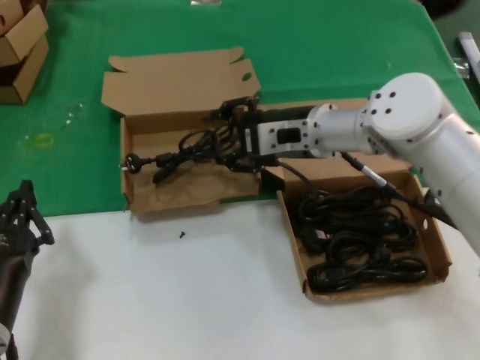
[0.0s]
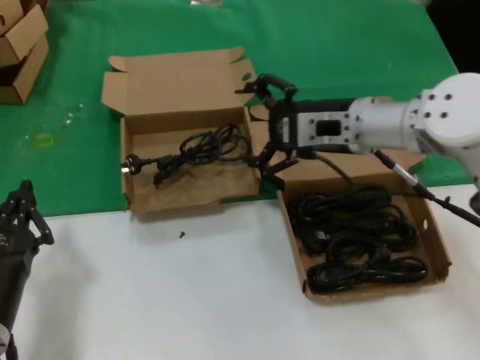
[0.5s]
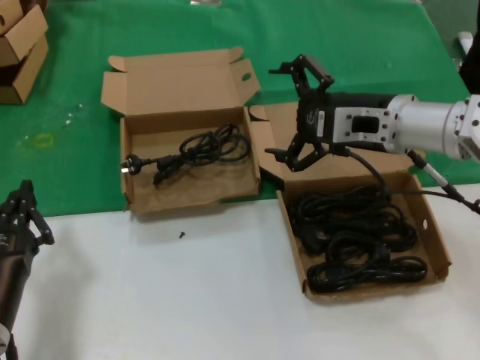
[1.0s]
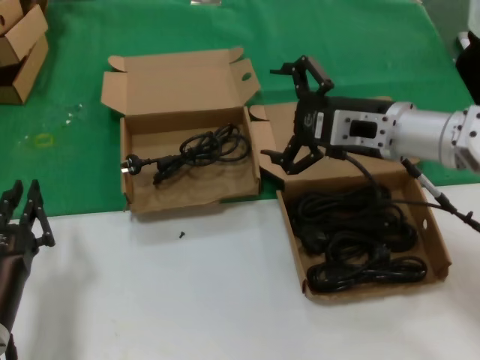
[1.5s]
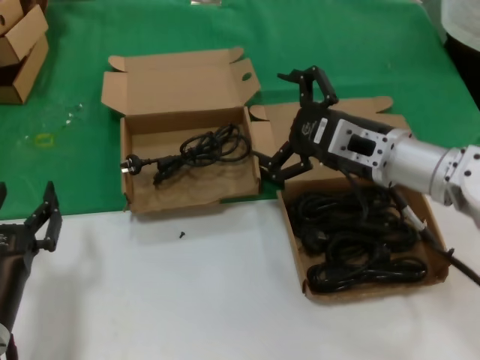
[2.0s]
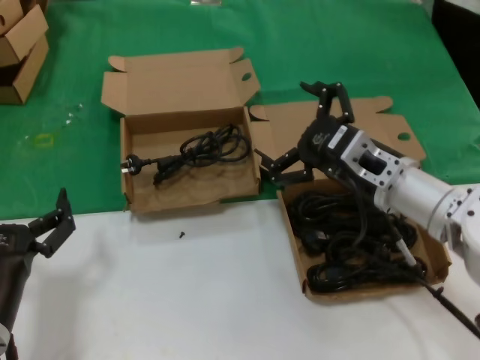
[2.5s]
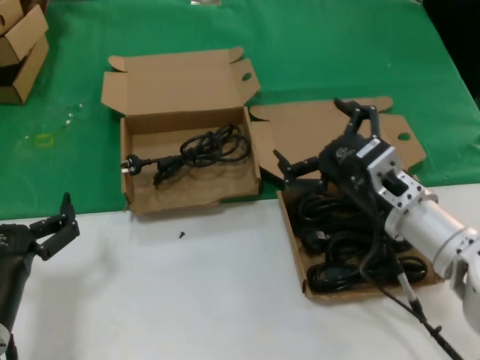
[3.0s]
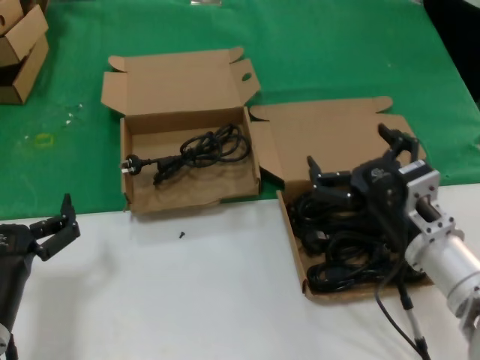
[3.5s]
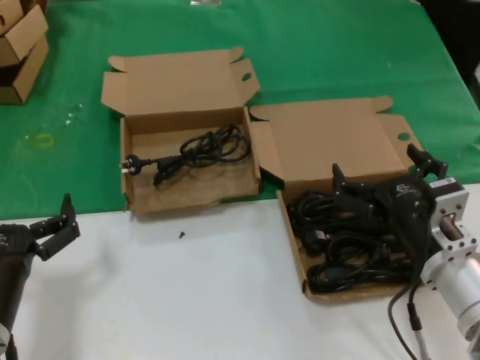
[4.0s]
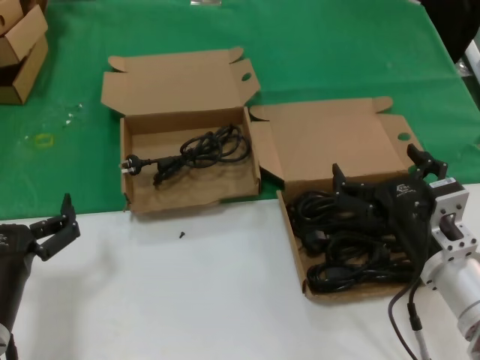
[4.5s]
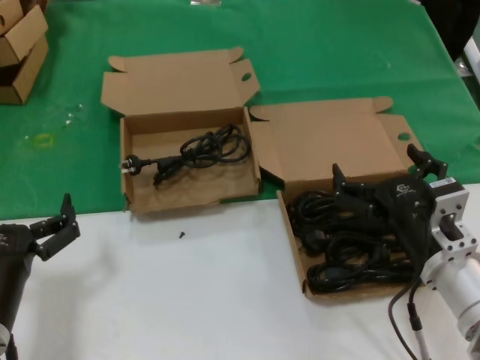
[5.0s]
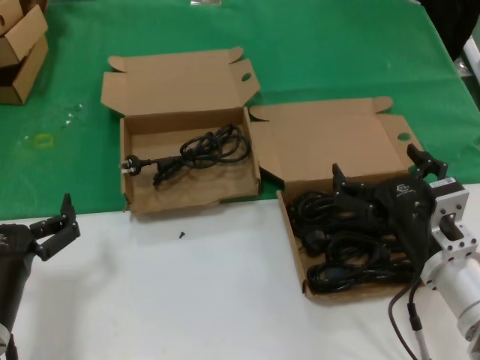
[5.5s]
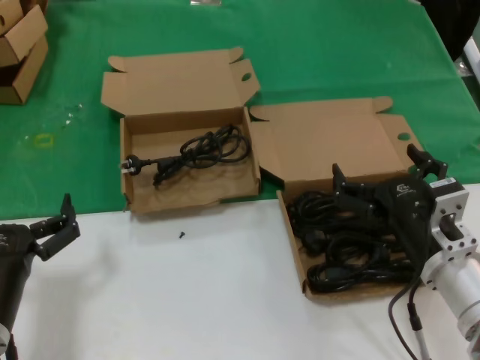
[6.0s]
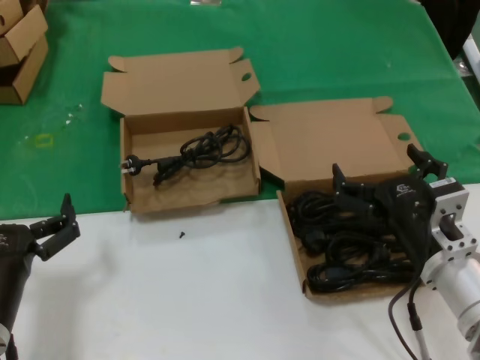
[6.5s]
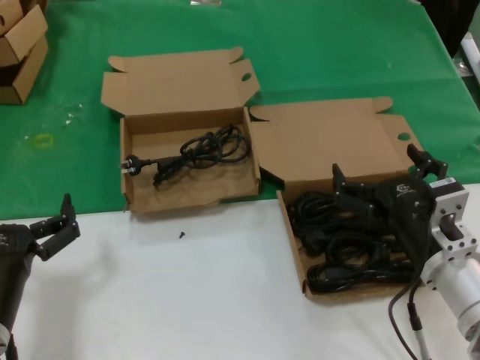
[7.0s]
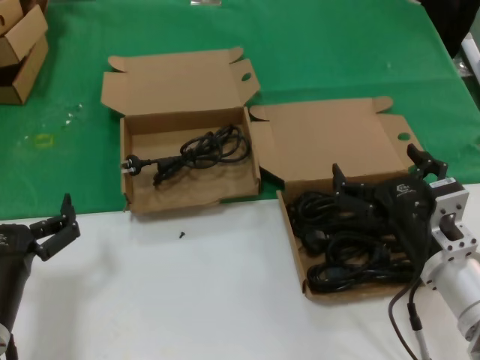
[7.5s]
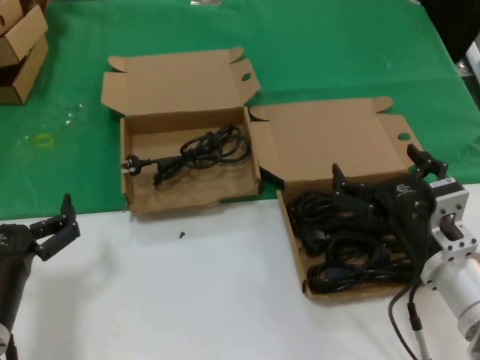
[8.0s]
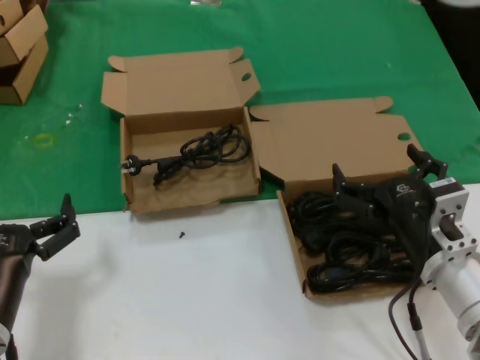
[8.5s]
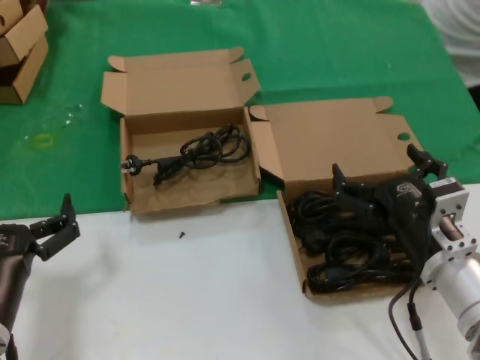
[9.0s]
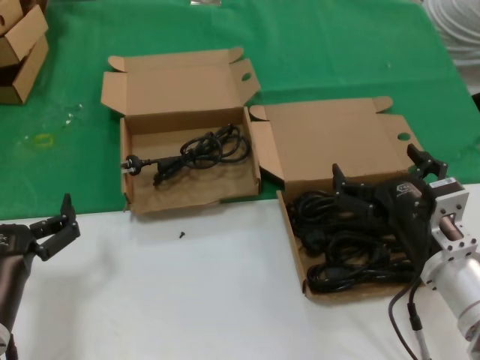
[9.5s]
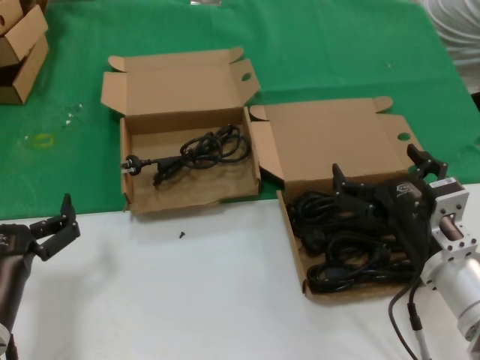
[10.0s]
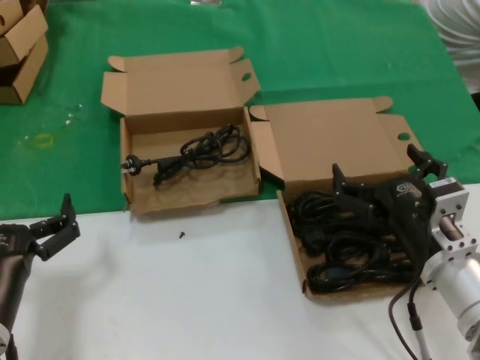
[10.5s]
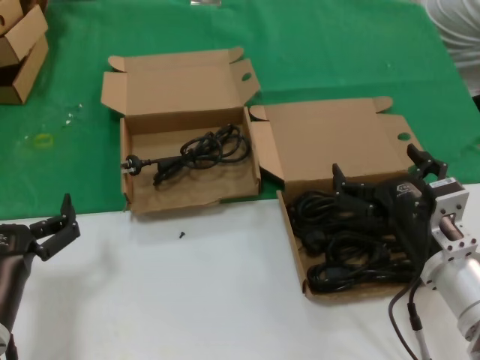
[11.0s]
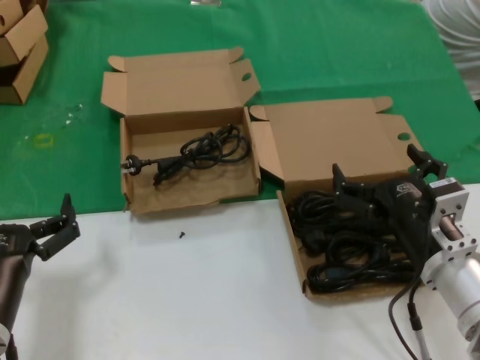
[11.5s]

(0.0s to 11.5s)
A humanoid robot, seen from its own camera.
Task of the whole recording: take the parts from the box containing them and put them into an empty box.
0.0s - 2.0s: The right hand moves backward and to the right, approximately 10 cm.
2.0s - 4.0s: The right hand moves backward and downward, roughly 15 cm.
4.0s - 11.5s: Both hands stay about where they are.

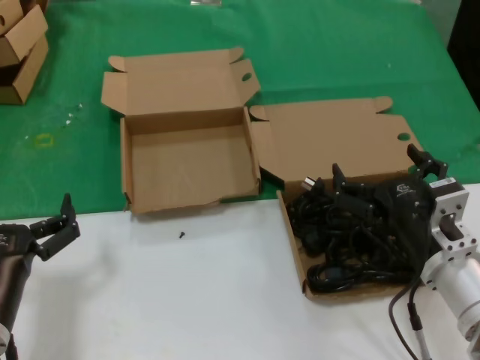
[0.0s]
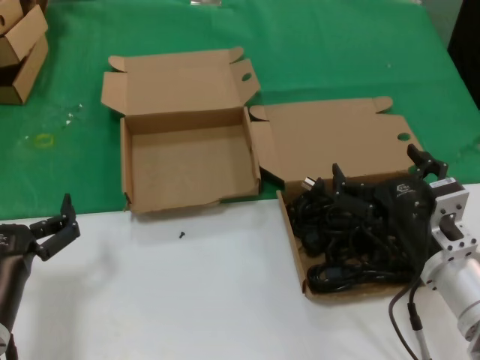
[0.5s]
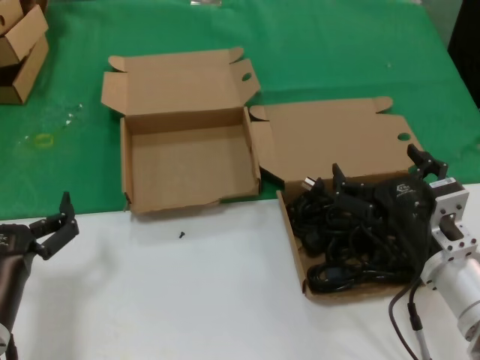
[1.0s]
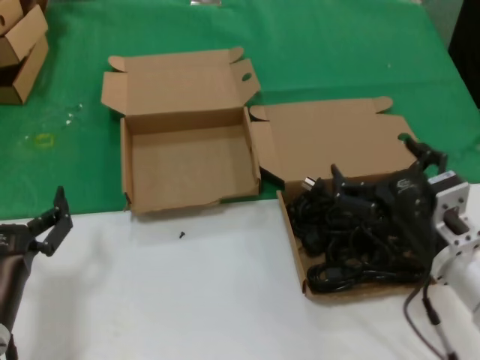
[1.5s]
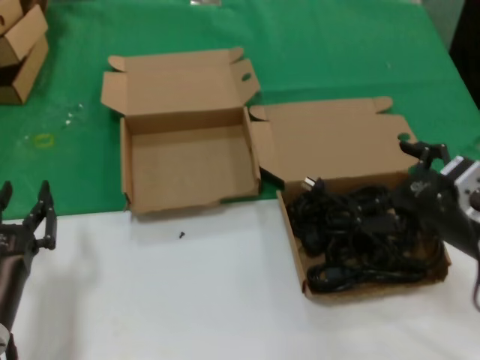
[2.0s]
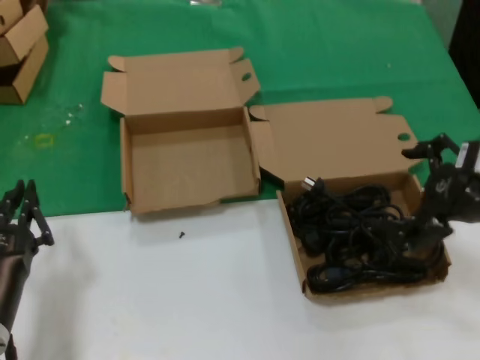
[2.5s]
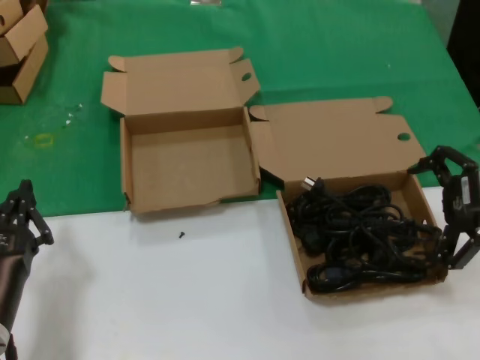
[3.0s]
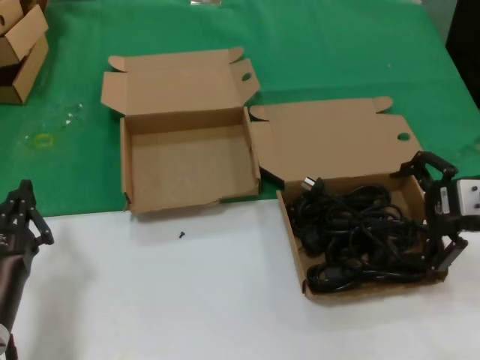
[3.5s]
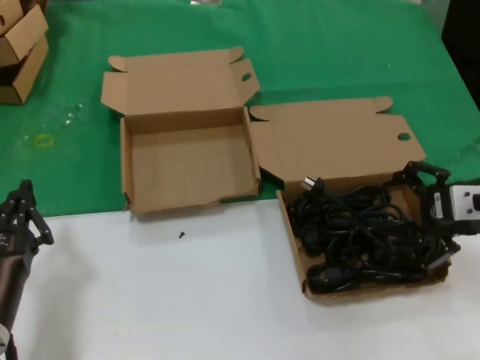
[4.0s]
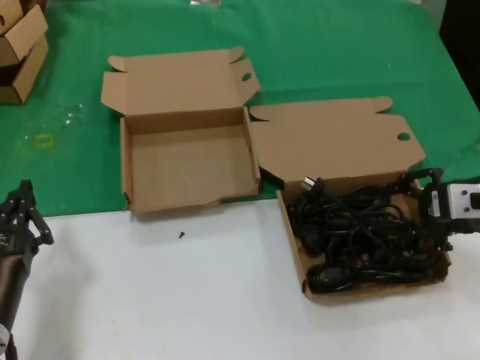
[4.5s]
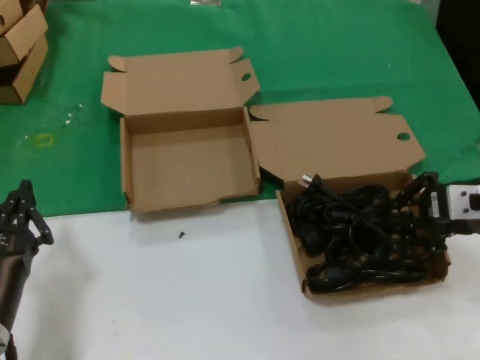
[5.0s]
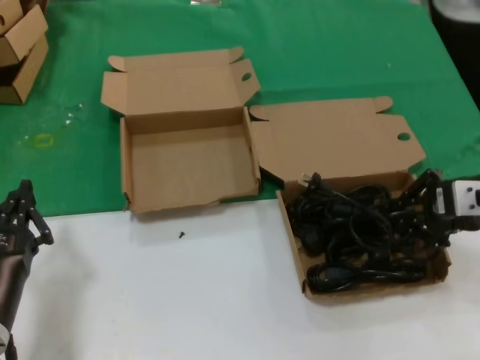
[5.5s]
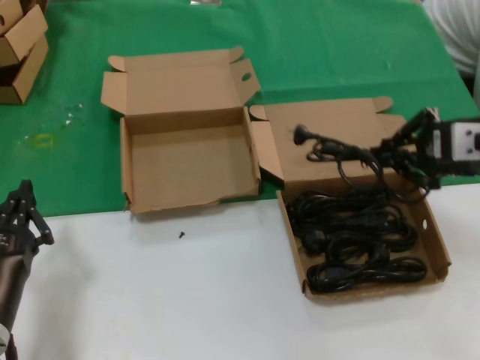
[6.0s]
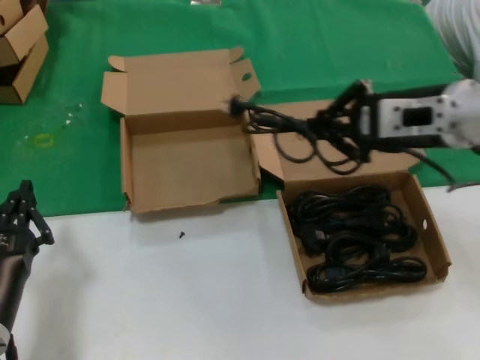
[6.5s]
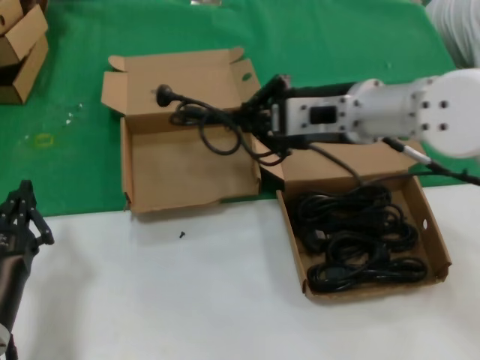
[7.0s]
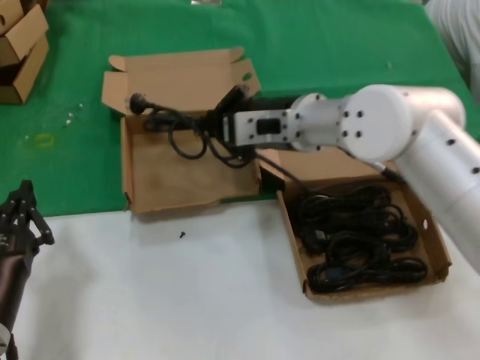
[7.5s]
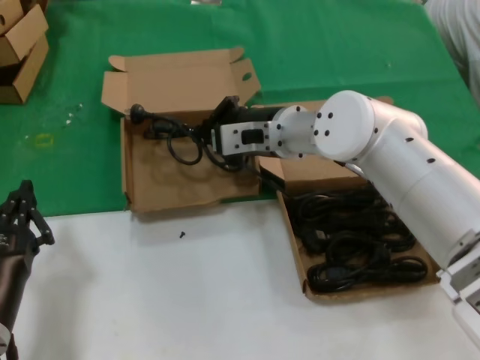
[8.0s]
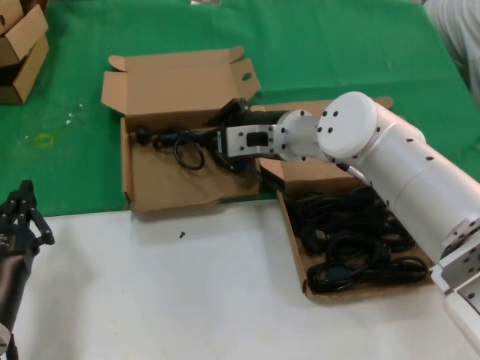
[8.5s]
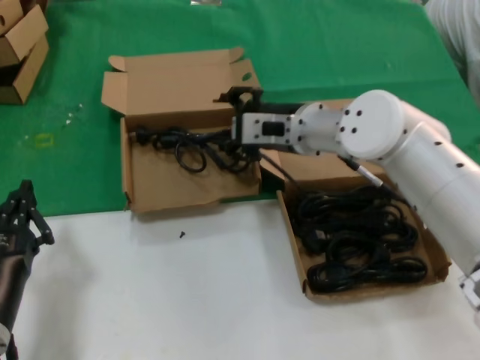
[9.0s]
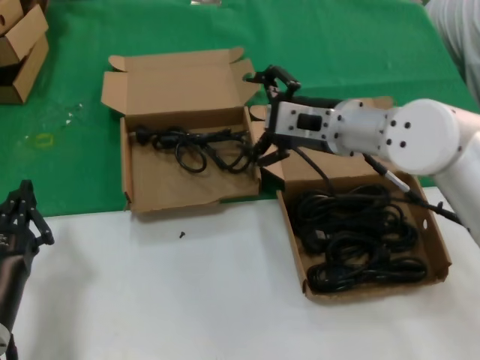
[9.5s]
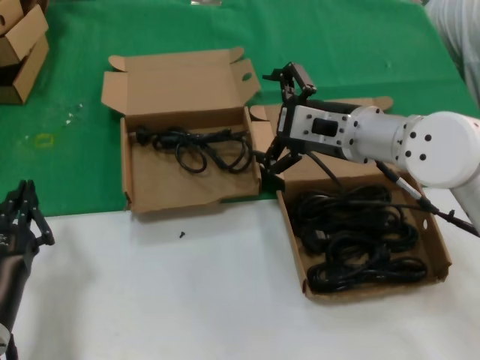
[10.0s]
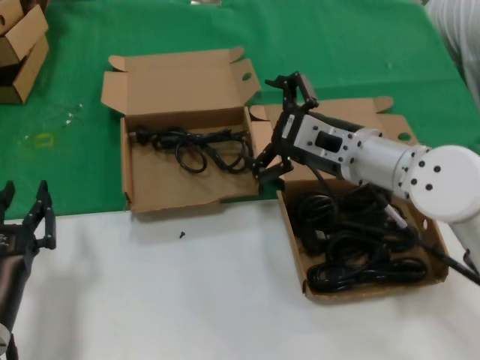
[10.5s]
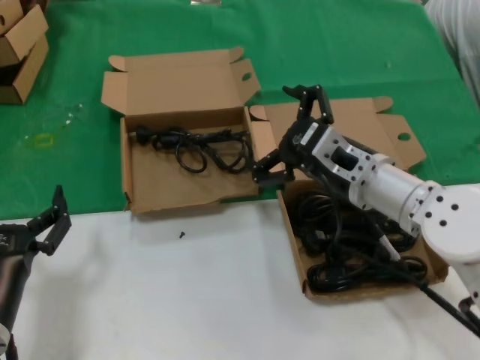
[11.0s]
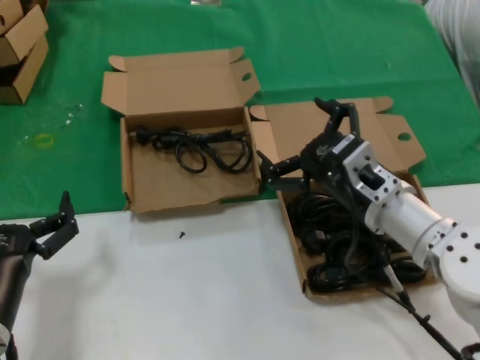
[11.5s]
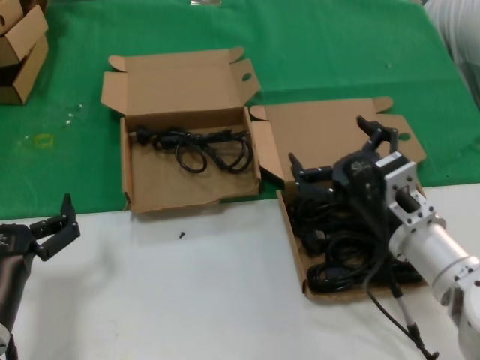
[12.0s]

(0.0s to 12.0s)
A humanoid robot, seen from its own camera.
Task of the whole recording: take the parts from the box containing them and put them into an empty box.
Step, 0.0s - 5.0s: Grasp the data cable.
Step, 5.5s - 8.5s: Place the data cable in the another box.
0.0s - 2.0s: The right hand goes roughly 10 cm upward and to the right.
2.0s - 4.0s: The right hand travels upward and forward by some 10 cm.
4.0s - 6.0s: The right hand heads upward, covering some 5 cm.
6.0s - 8.0s: The right hand is displaced to the left and forward by some 30 cm.
8.0s - 10.0s: The right hand is displaced to the right and backward by roughly 10 cm.
10.0s - 12.0s: The right hand shifts some 15 cm backward and downward.

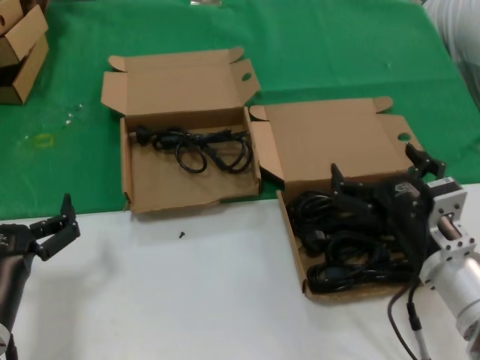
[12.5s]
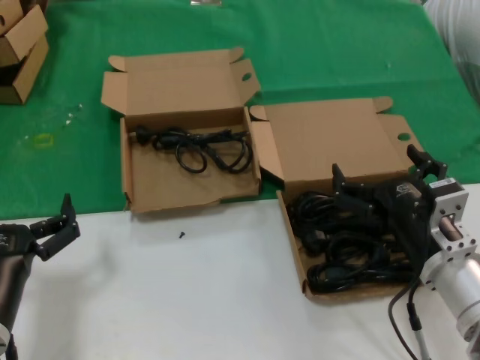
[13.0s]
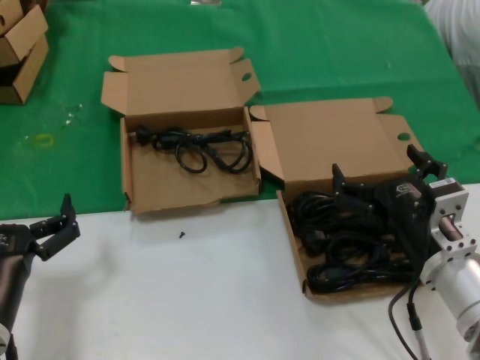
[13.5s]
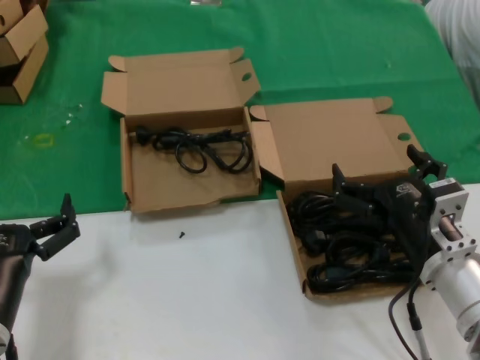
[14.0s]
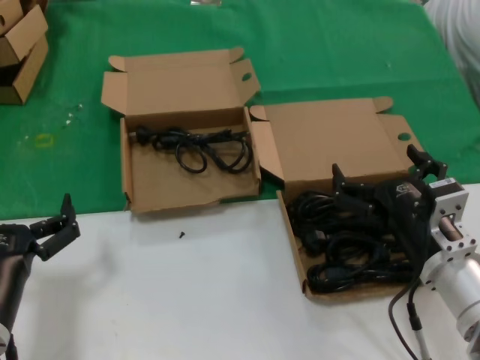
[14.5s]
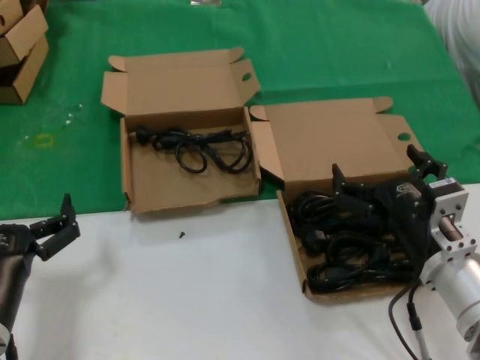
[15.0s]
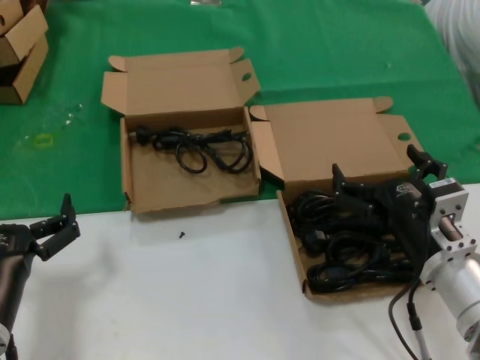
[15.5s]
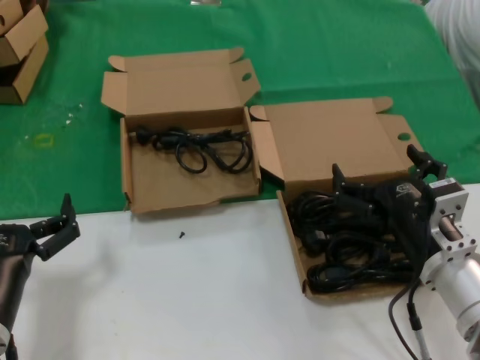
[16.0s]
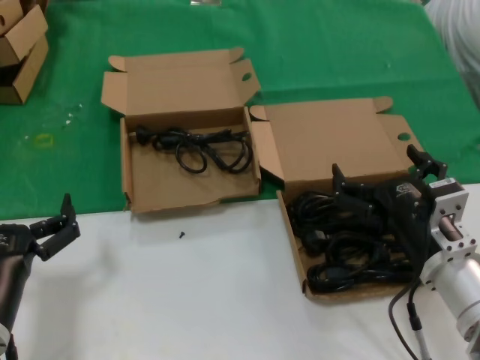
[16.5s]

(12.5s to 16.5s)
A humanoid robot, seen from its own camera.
Task of the whole recording: take the parts from the box containing them and put them into an empty box.
12.5s - 16.5s: Neither hand changes place.
